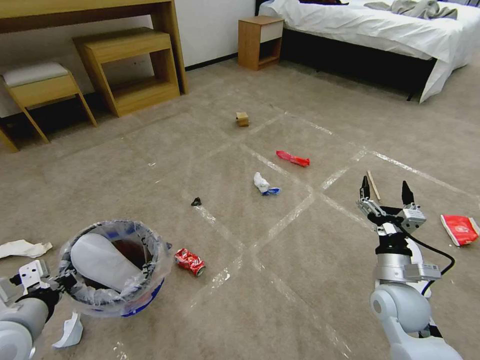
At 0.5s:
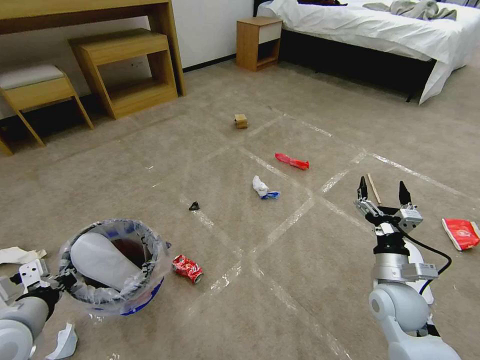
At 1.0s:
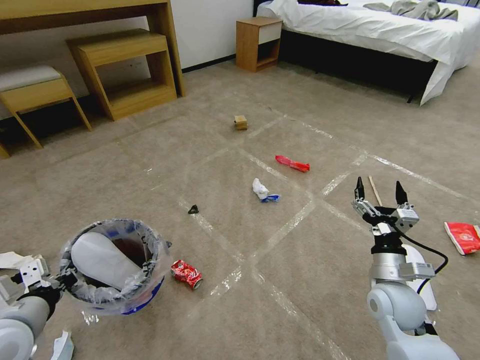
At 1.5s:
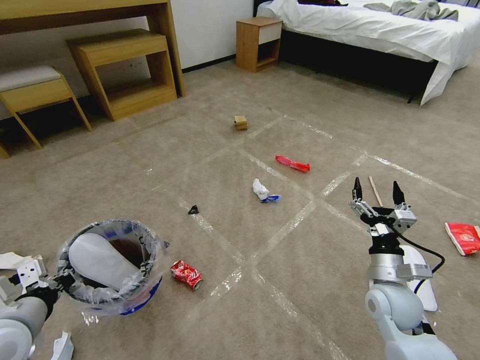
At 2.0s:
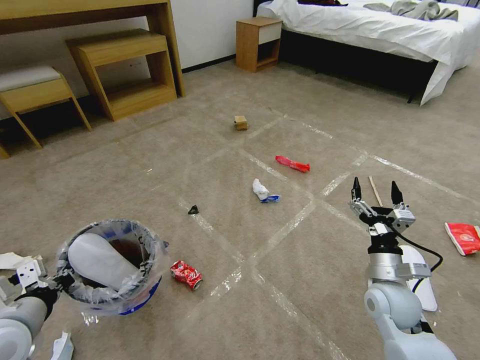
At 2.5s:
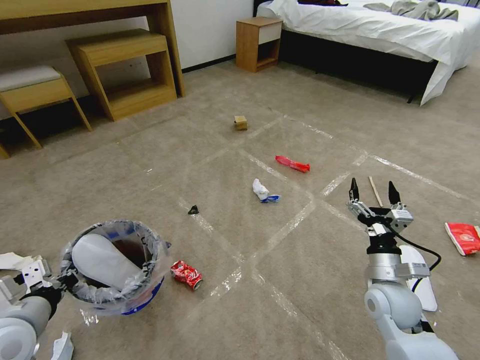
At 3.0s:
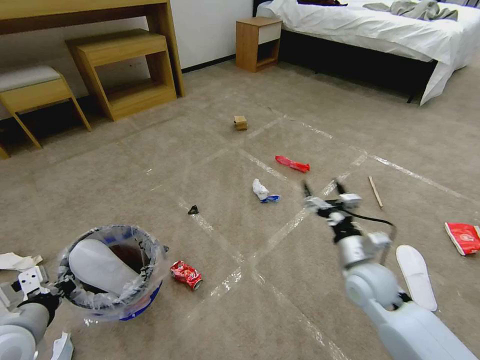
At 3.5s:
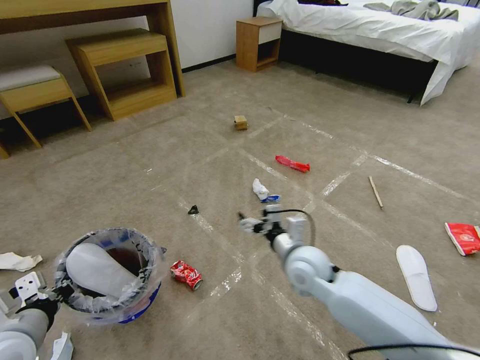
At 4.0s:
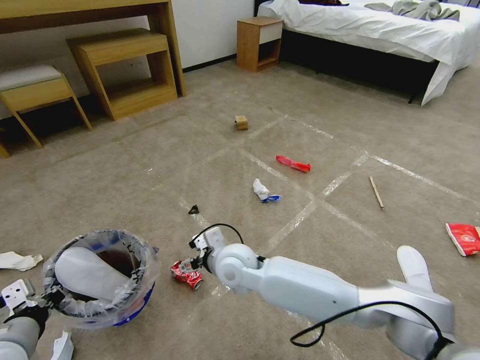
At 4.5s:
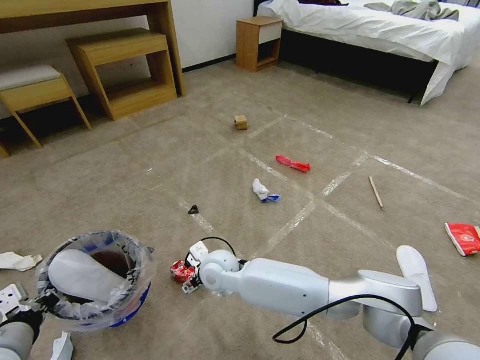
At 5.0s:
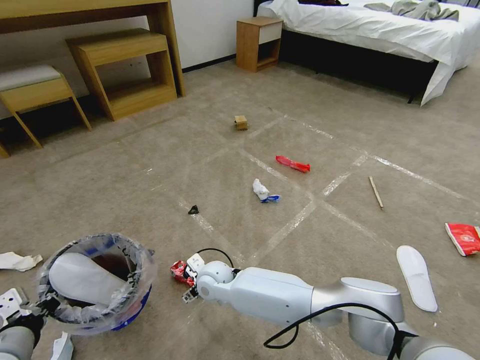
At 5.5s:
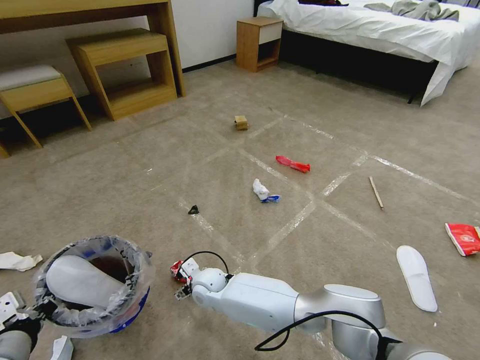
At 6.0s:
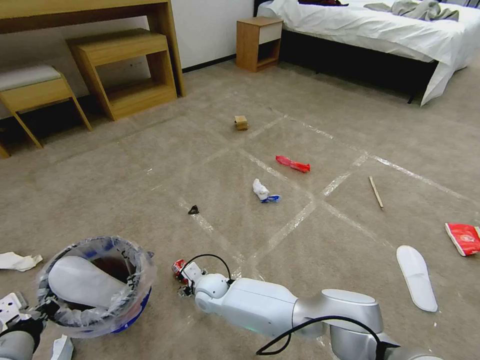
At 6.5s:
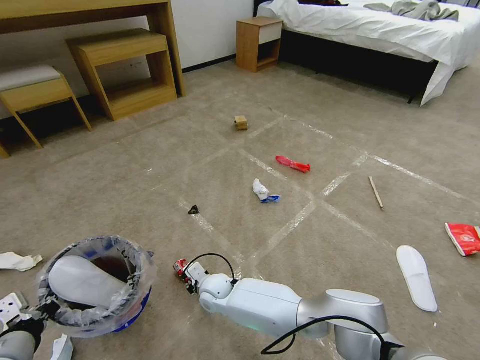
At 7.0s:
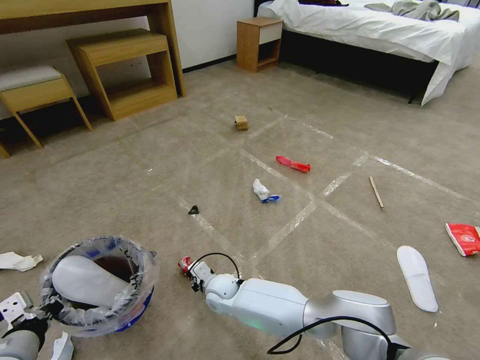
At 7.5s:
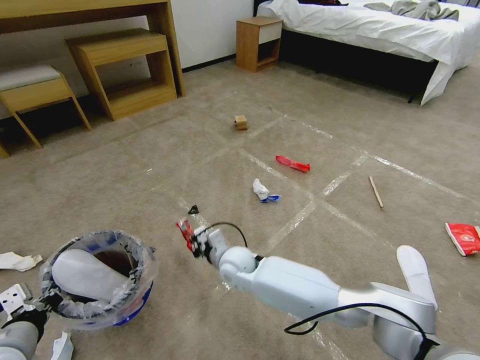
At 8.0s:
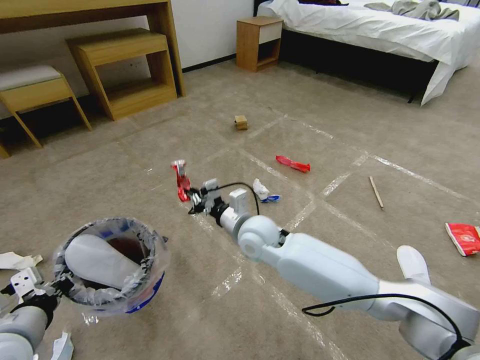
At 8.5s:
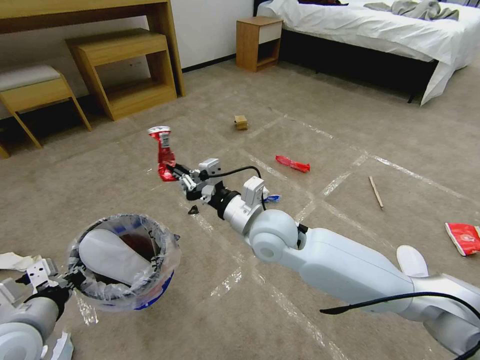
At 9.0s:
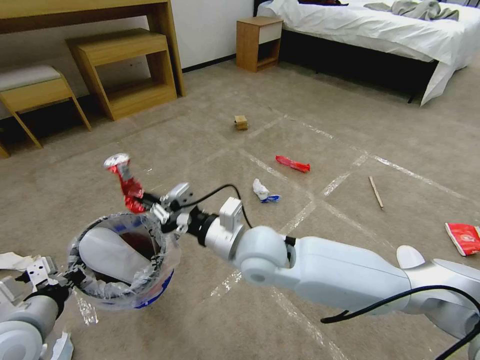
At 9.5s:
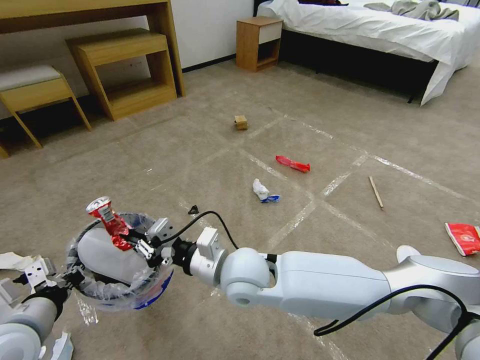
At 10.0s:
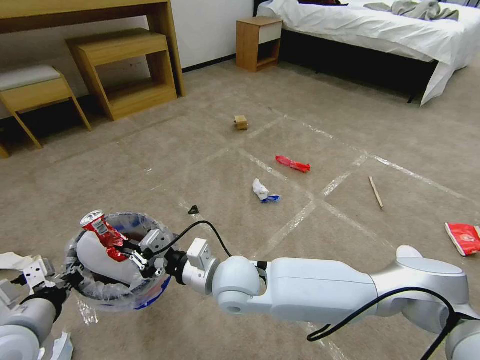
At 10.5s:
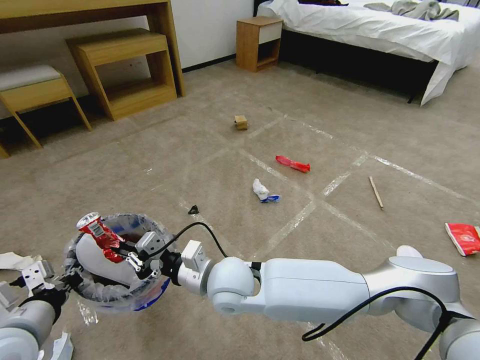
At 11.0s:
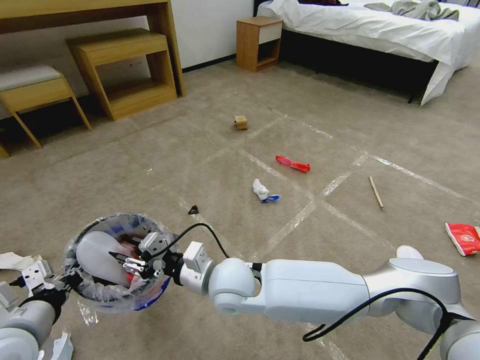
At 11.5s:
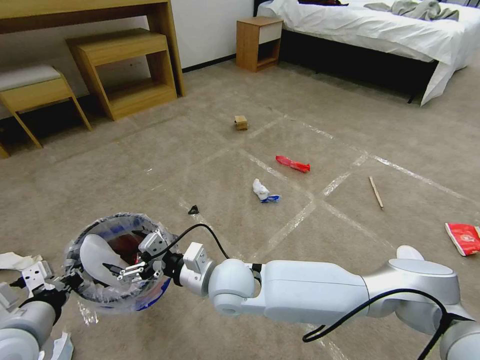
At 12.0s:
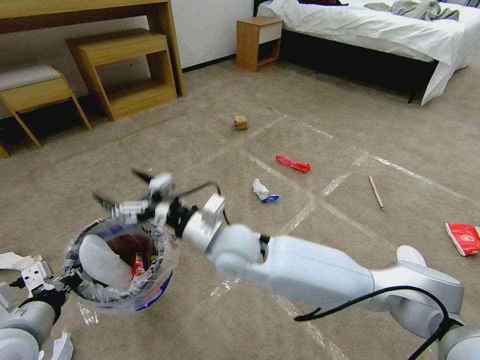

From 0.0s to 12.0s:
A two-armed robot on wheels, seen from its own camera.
Task of the whole recording: Pick up the trash bin and place the garbage on the floor into it.
From 0.0s to 2.0s: The grippers stay close to where they were, moving slightly.
From 2.0s to 4.0s: The right gripper heads to the left, covering some 35 cm.
From 4.0s to 6.0s: The right gripper shifts approximately 20 cm downward and to the left.
From 6.0s to 8.0s: The right gripper travels upward and to the right by about 25 cm, and closes.
From 8.0s to 10.0s: The right gripper moves backward and to the left, some 15 cm.
From 10.0s to 12.0s: The right gripper is displaced upward by about 5 cm, and opens its fingers.

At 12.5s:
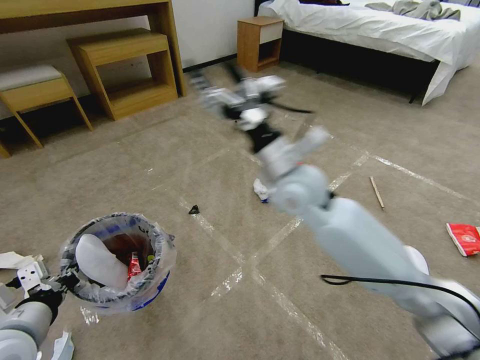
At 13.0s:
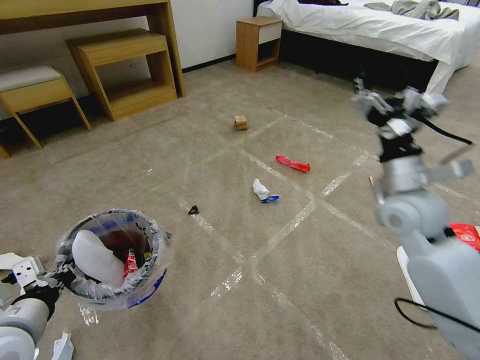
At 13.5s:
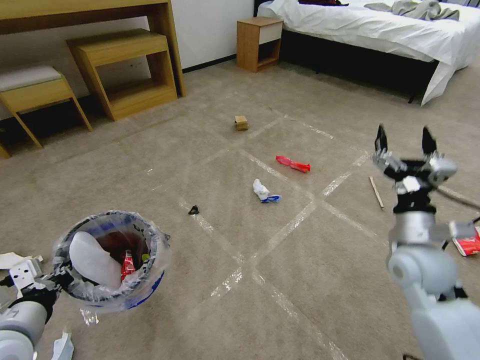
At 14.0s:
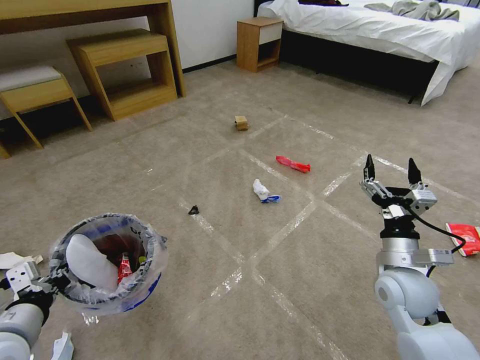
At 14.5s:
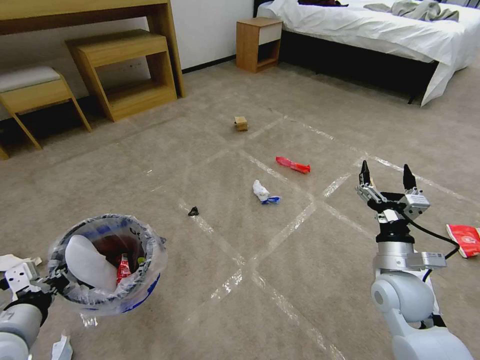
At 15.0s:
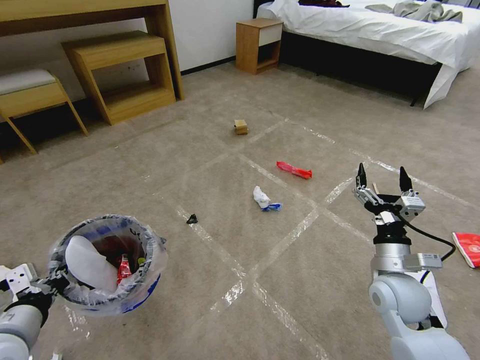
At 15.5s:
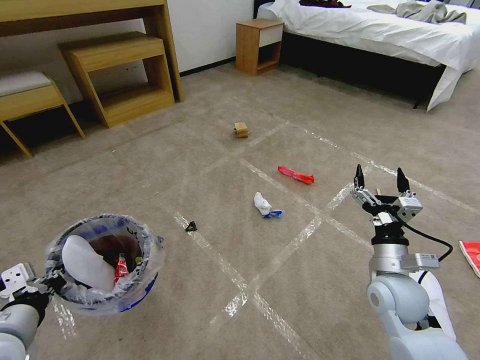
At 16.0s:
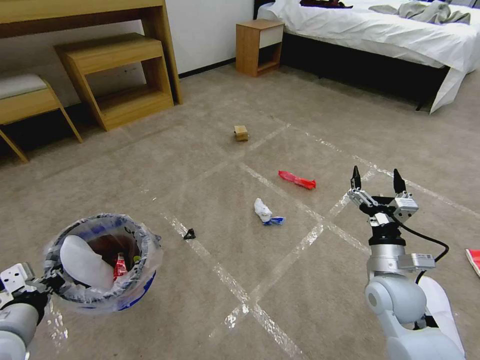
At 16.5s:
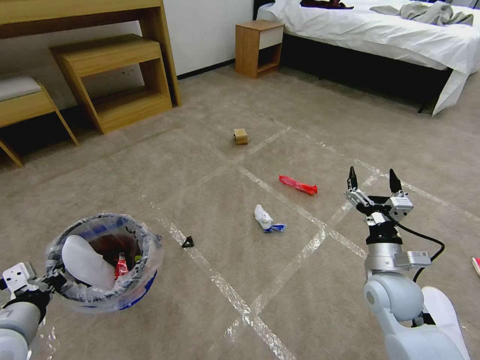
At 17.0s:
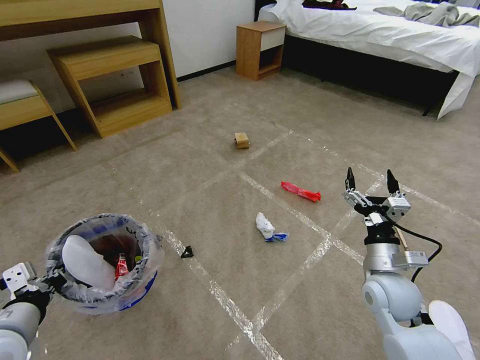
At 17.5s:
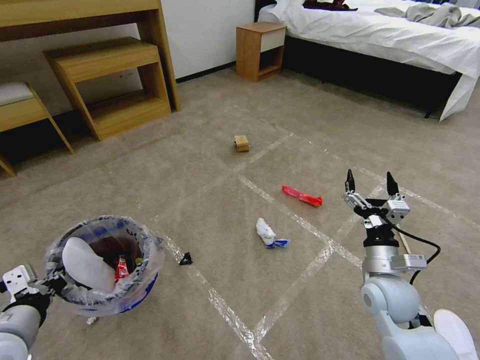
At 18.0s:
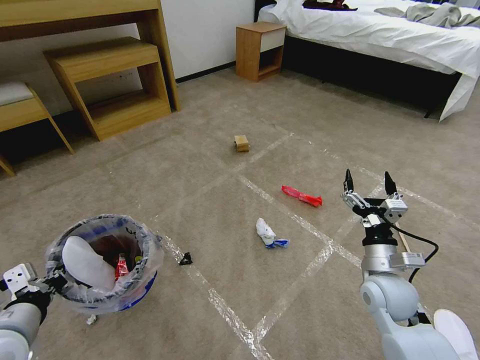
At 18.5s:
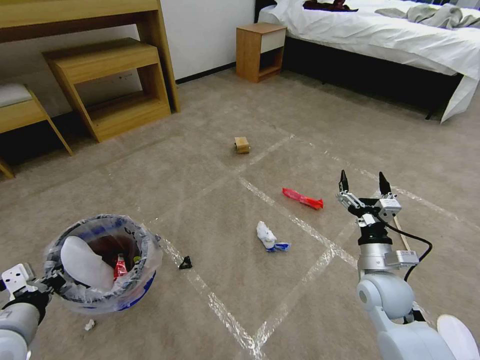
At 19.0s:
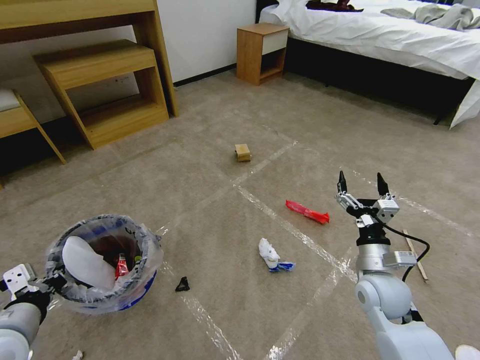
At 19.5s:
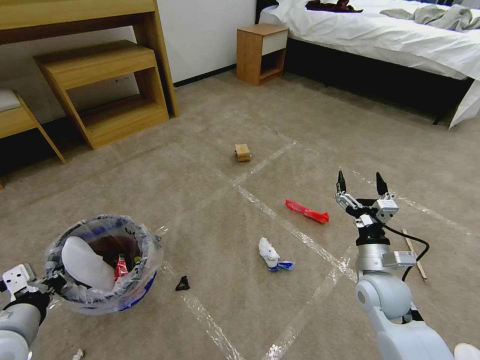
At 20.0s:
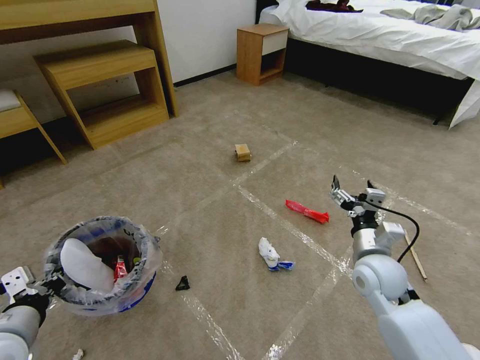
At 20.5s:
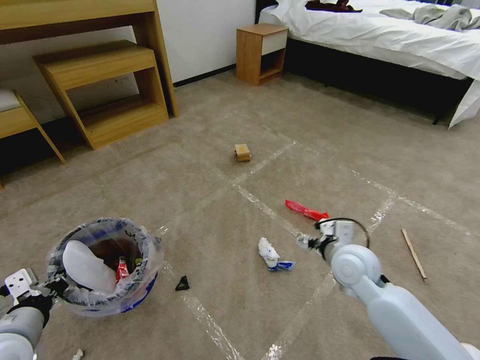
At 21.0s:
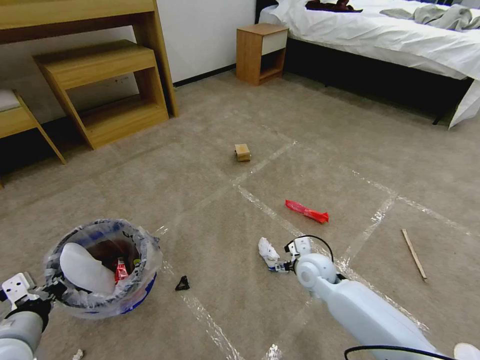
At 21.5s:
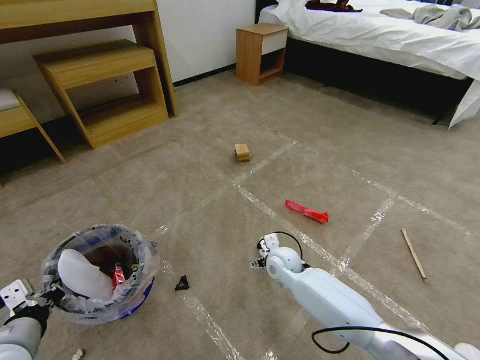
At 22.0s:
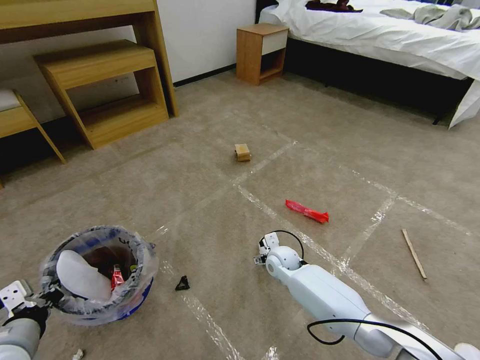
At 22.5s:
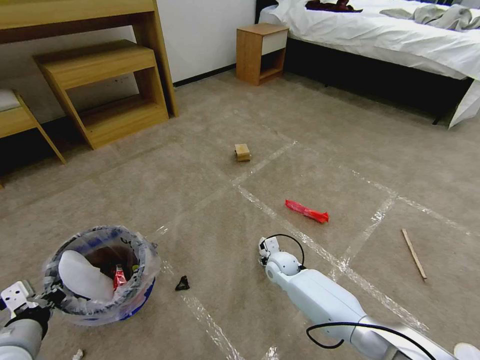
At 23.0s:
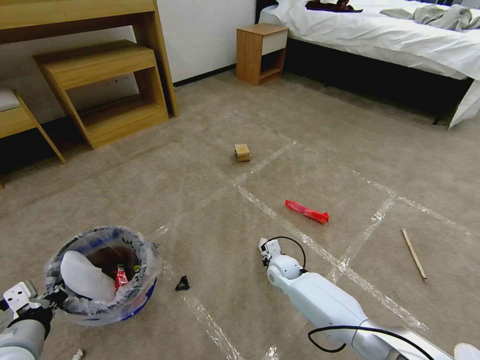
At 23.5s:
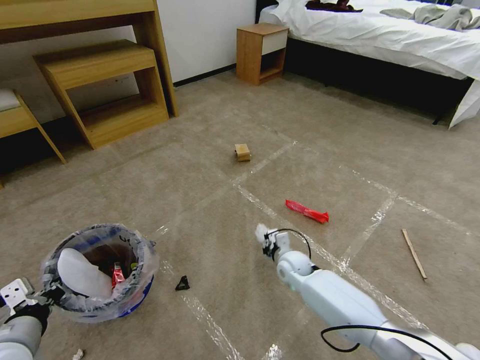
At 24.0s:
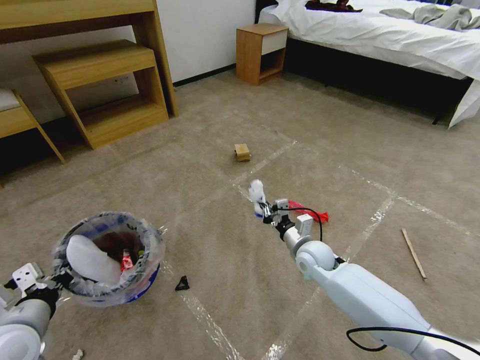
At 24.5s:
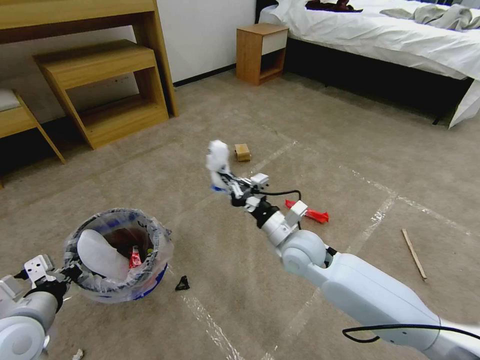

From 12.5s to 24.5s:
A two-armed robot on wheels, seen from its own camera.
Task of the whole recording: Pick up the trash bin and place the garbage on the floor into it.
From 12.5s to 14.5s: The right gripper shifts about 30 cm to the right, downward and backward.
From 16.5s to 18.5s: The grippers make only small movements.
From 18.5s to 20.5s: The right gripper moves about 5 cm.
From 20.5s to 22.5s: The right gripper is displaced downward, to the left and forward by approximately 25 cm.
From 22.5s to 24.5s: The right gripper travels upward by about 20 cm, and closes.

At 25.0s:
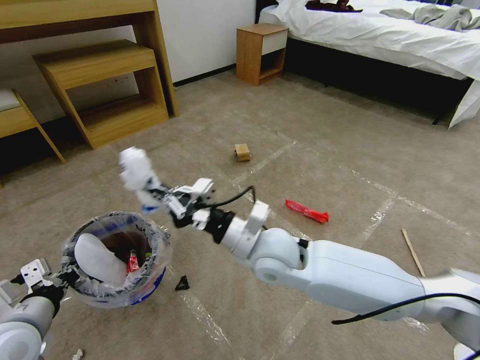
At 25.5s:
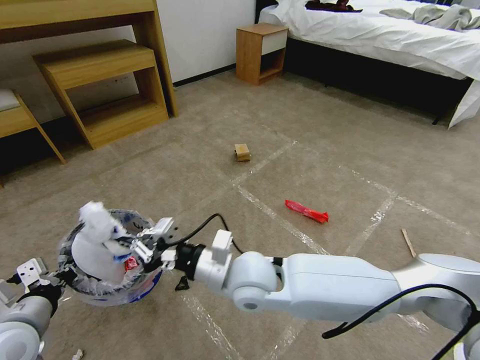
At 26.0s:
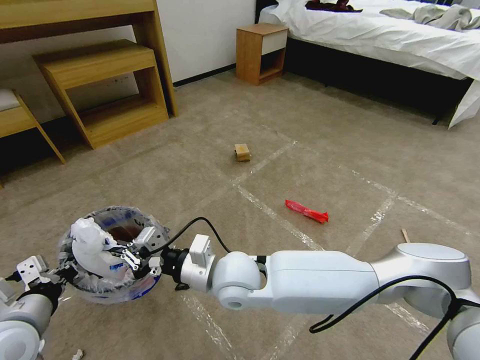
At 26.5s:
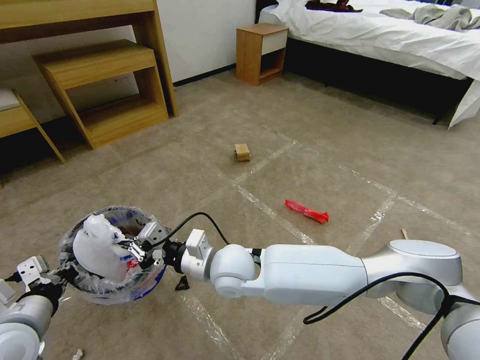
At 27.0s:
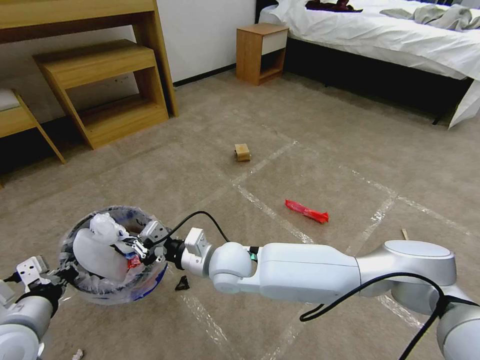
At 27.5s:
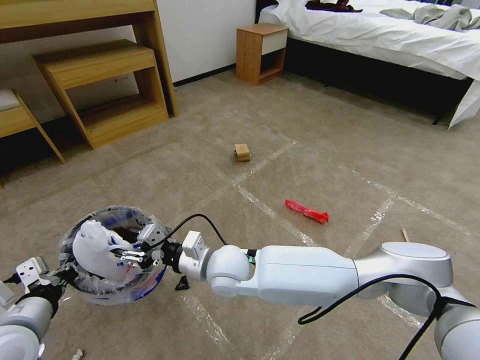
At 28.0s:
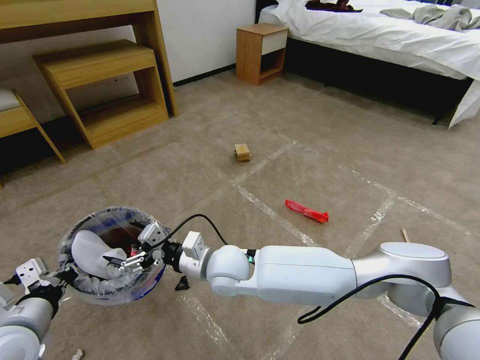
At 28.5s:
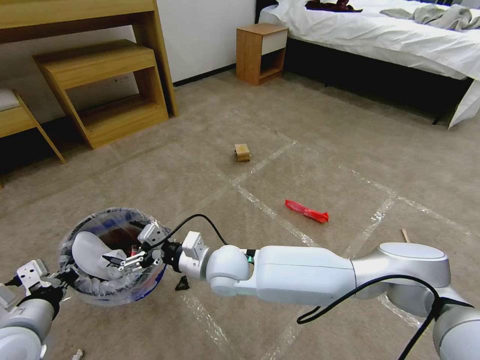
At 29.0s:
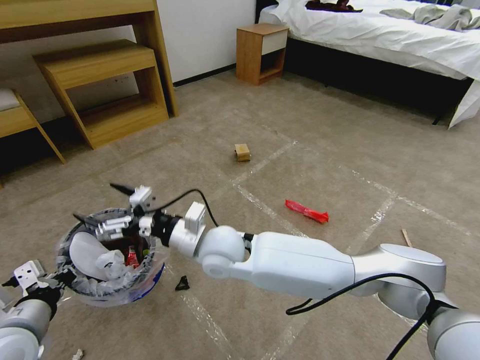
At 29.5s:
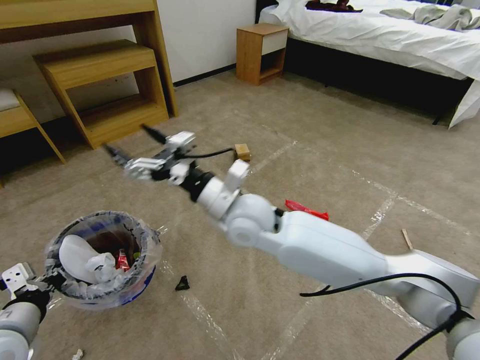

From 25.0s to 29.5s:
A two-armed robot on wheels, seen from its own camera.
Task of the whole recording: Pick up the trash bin and place the garbage on the floor into it.
From 25.0s to 27.0s: The right gripper is displaced to the left and downward by some 10 cm.
From 27.0s to 29.5s: The right gripper is displaced upward by about 10 cm, and opens.
